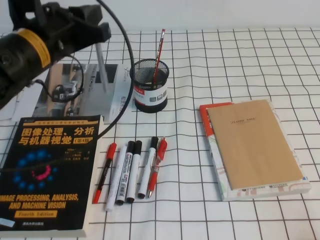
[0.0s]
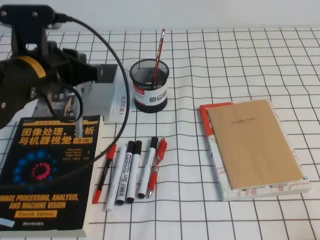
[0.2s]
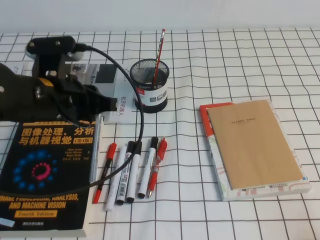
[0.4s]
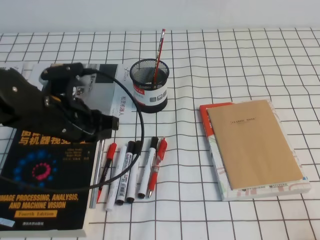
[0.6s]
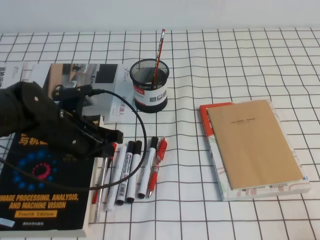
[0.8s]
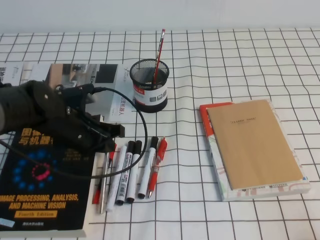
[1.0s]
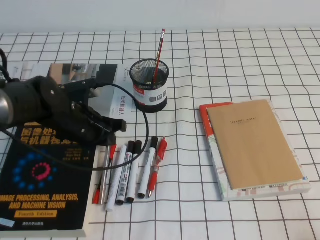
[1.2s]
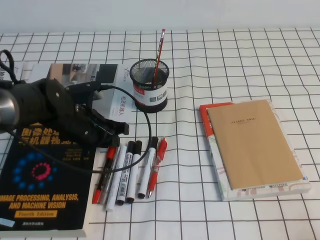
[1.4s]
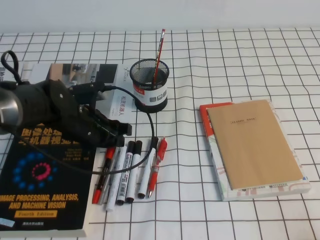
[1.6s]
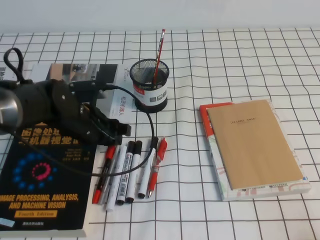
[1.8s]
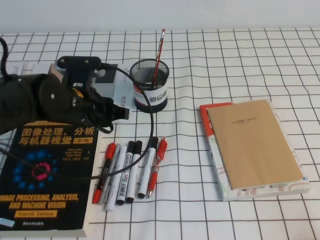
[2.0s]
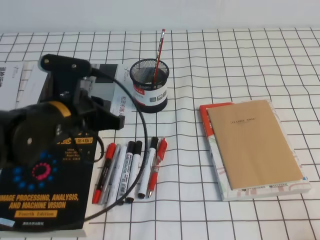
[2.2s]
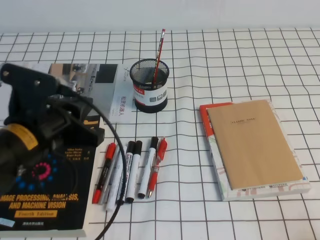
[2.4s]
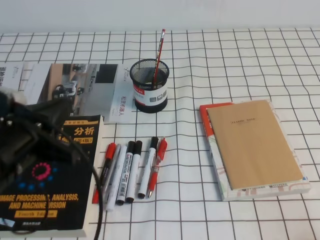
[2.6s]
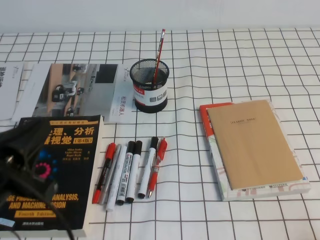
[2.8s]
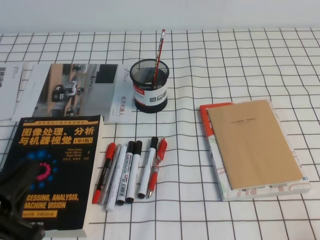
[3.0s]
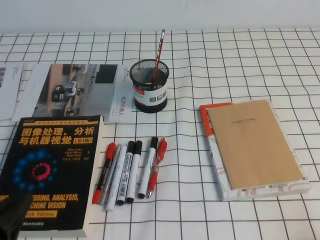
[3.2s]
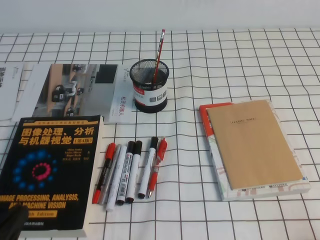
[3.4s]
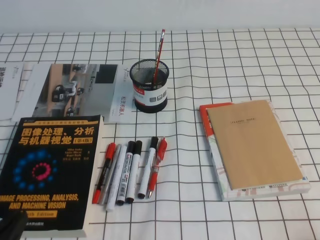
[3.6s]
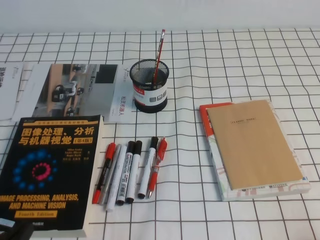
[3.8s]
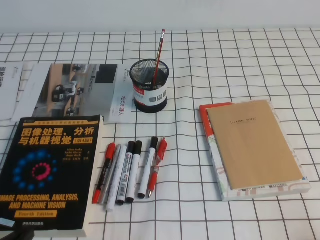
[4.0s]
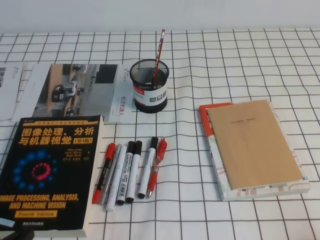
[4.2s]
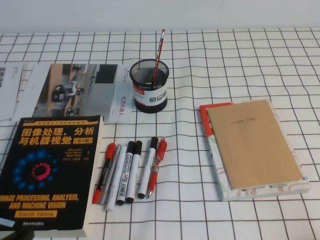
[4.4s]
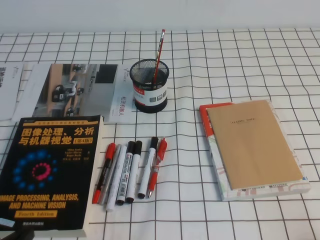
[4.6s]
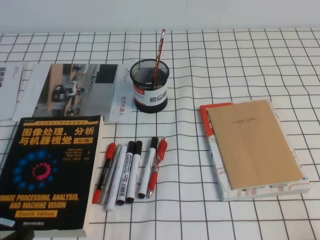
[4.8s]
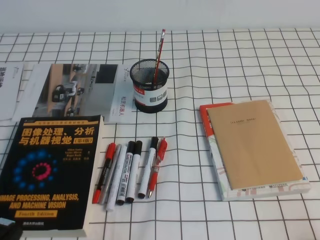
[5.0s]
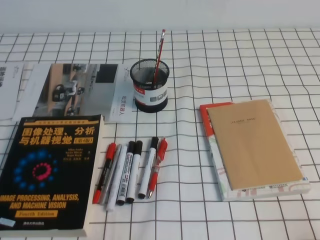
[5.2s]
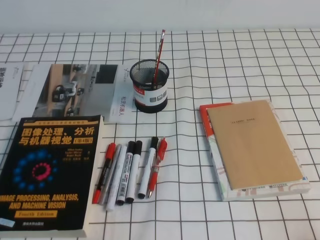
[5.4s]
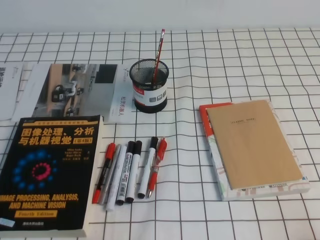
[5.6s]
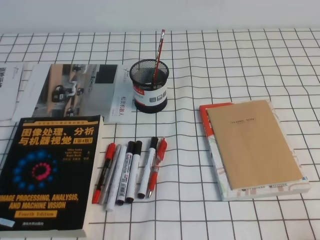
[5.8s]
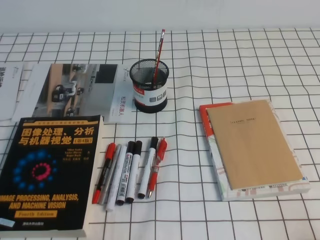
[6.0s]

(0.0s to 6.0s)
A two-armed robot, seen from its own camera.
Step, 0.0s - 6.0s: Pick up the pen from the pen holder.
0.0s - 1.6s: The left gripper moves downward, roughly 20 cm, and opens.
1.6s - 3.0s: The left gripper travels backward by roughly 25 cm, and closes its fingers.
3.0s - 4.4s: The left gripper heads downward, covering some 10 cm.
